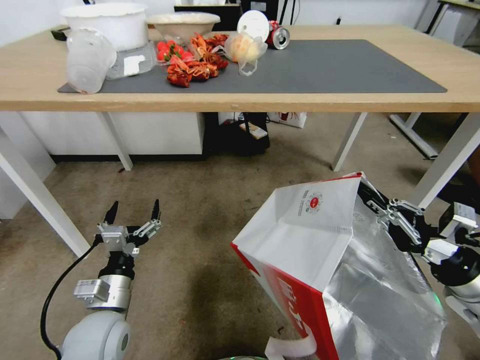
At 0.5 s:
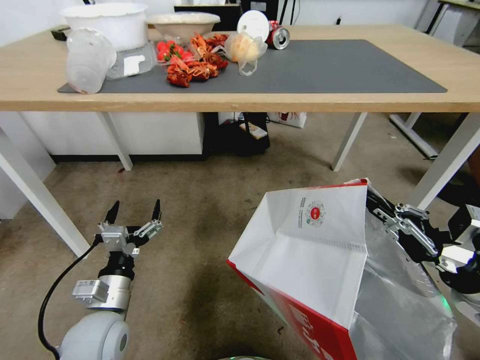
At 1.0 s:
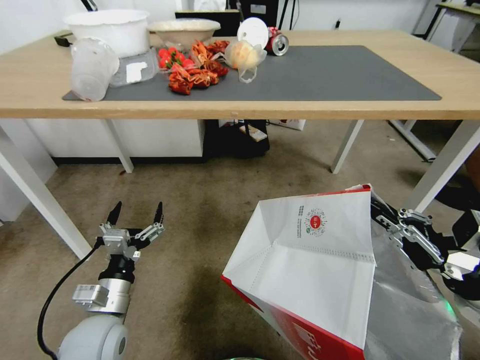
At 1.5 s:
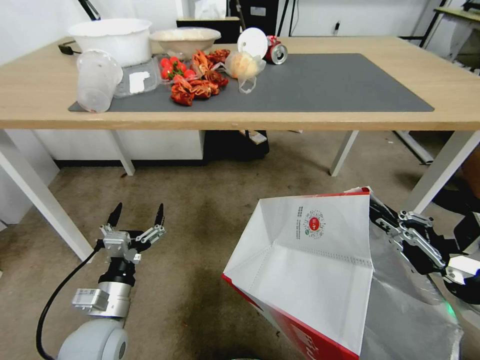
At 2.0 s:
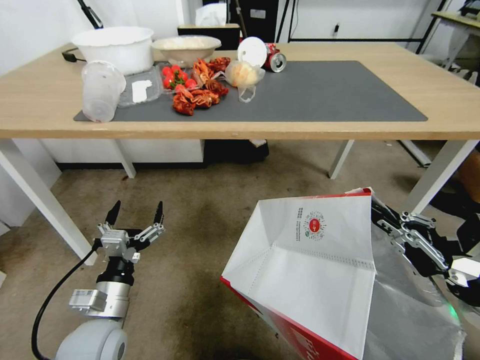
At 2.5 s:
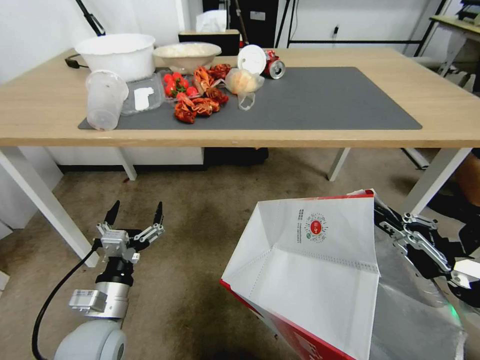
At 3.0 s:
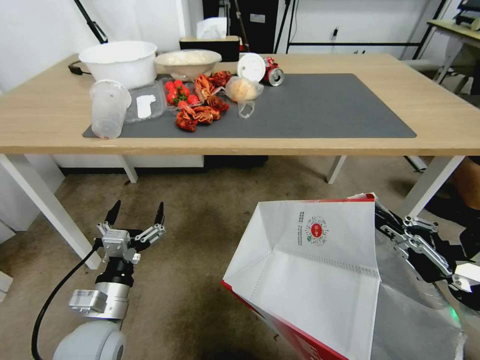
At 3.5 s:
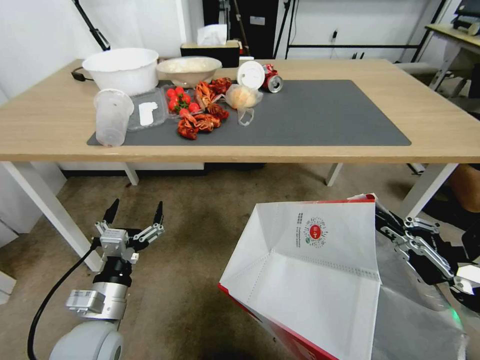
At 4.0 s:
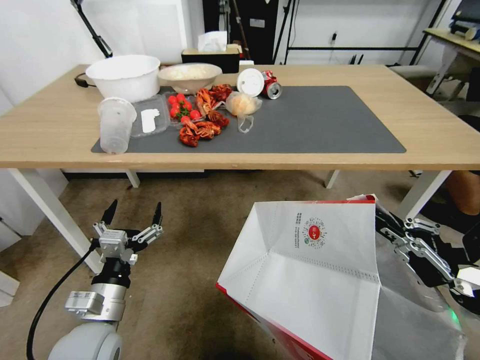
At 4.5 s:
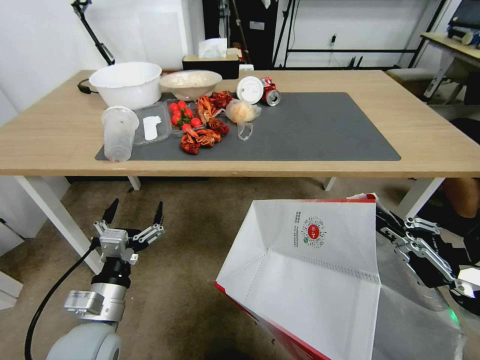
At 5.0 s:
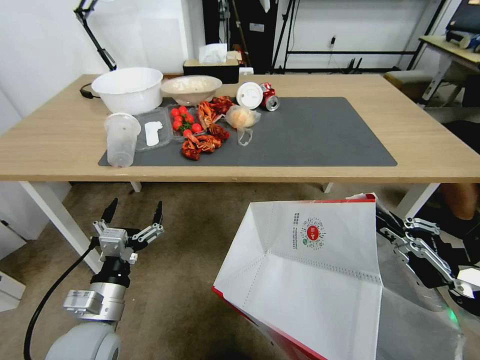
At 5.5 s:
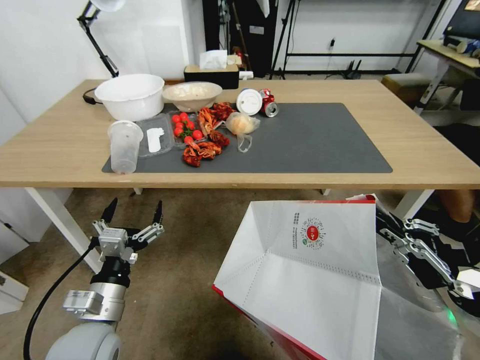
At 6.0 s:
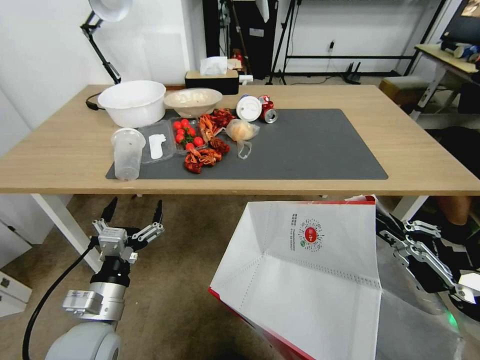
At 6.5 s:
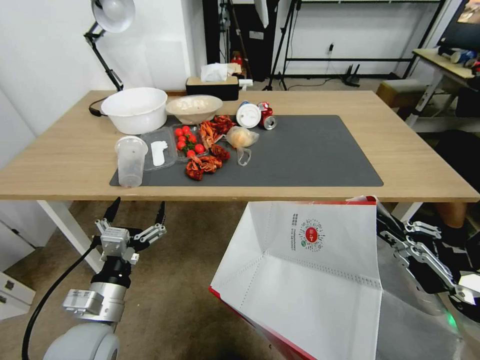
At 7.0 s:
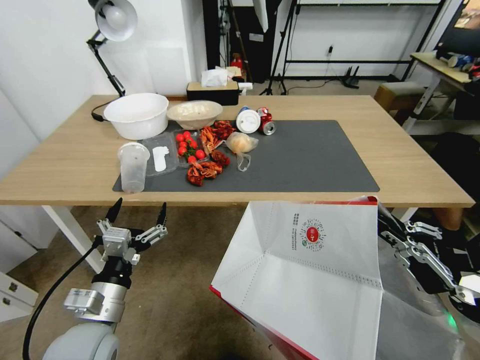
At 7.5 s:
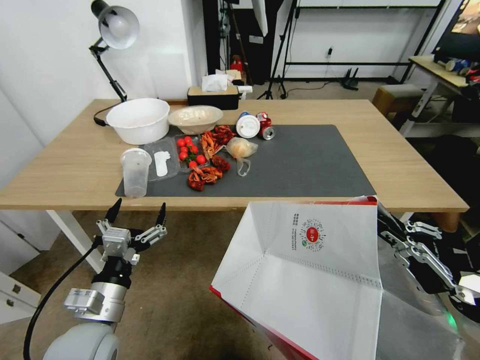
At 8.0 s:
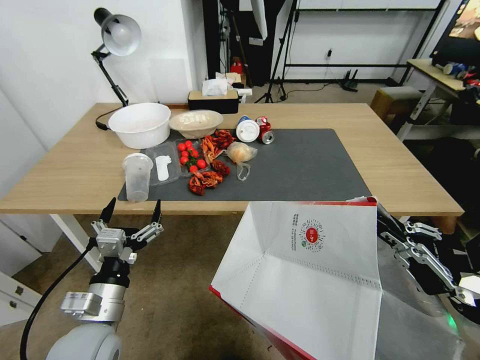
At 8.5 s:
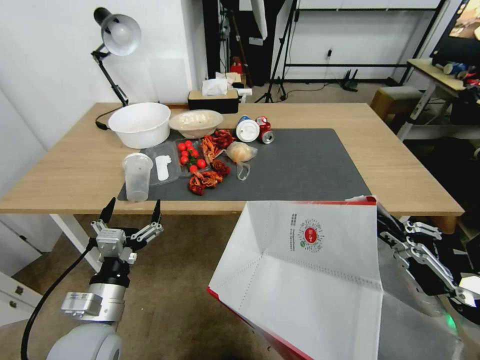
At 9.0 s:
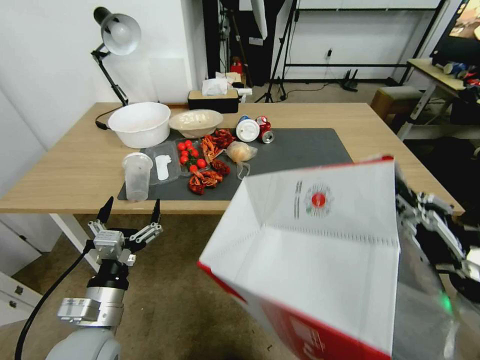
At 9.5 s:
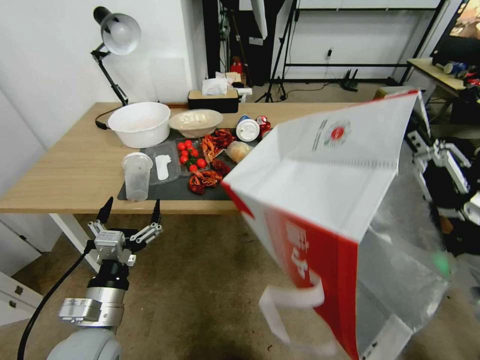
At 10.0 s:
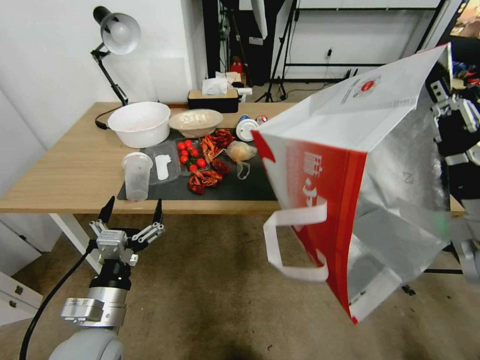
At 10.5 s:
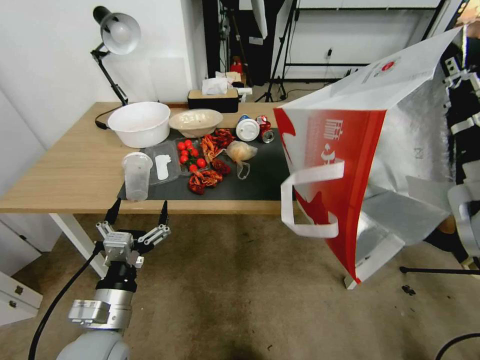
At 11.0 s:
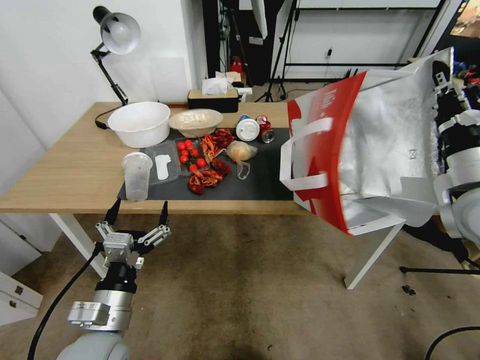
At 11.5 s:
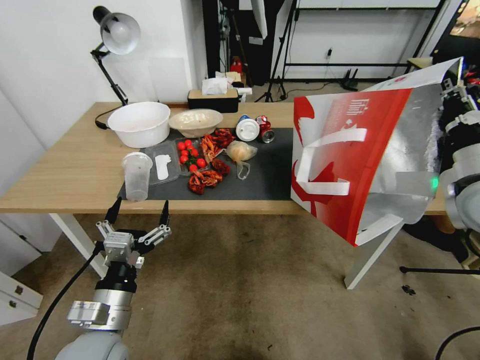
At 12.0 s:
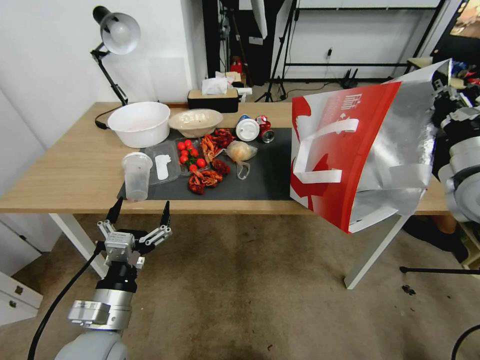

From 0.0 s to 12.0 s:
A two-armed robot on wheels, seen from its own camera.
Task of the whole recording: Pick up the food delivery bag from the floor and place it on the table.
From 8.0 s to 10.0 s: The right gripper moves upward and forward, some 10 cm.
From 10.0 s to 12.0 s: The right gripper travels forward and to the right by roughly 15 cm.

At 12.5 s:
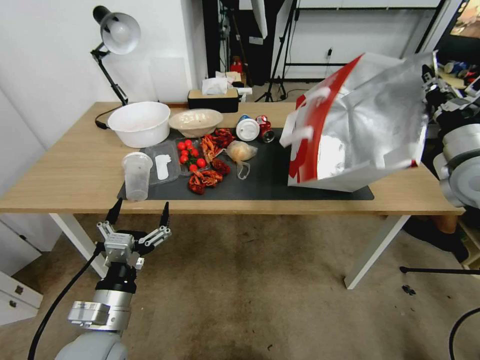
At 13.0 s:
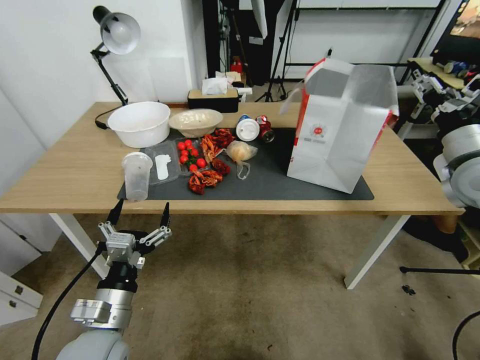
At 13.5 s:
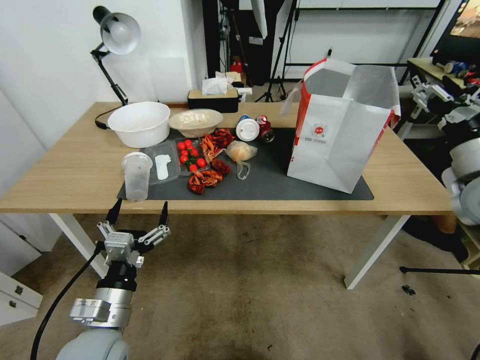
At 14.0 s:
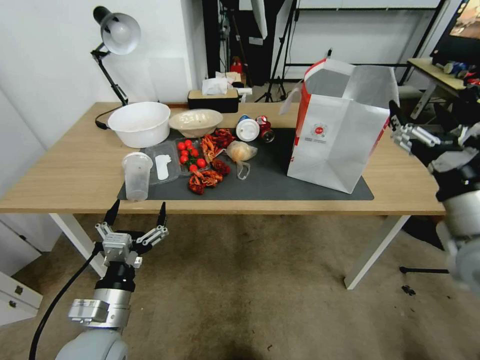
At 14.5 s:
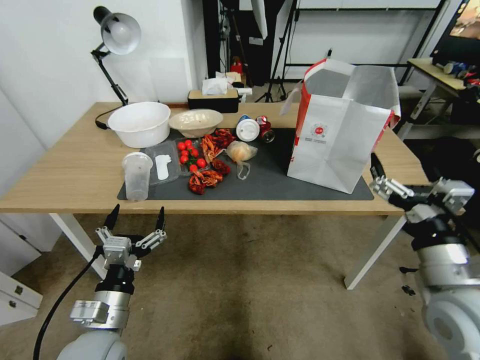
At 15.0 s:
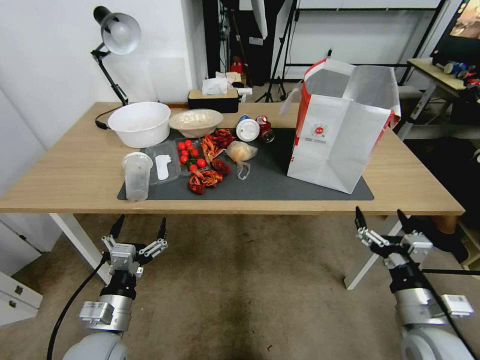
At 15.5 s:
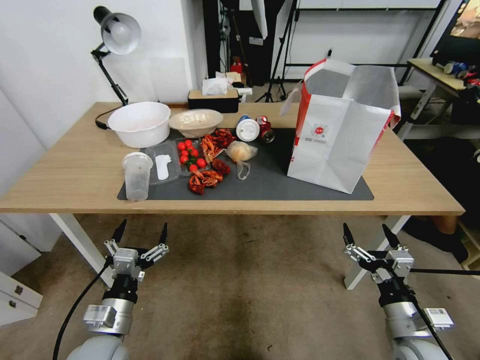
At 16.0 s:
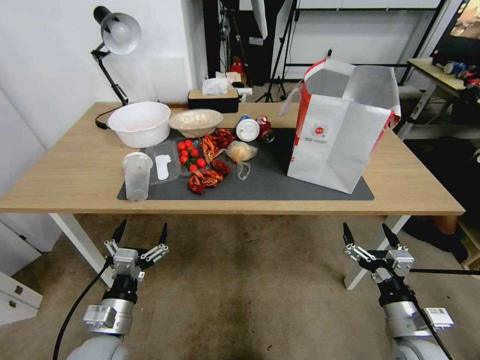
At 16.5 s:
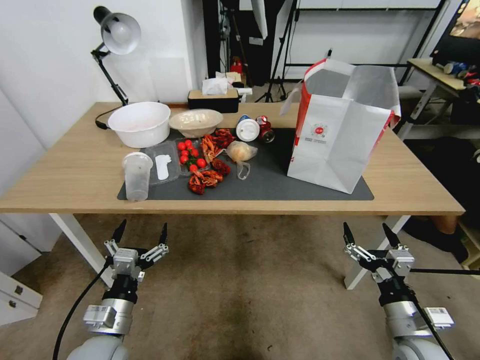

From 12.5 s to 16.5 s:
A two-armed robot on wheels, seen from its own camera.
Task of the whole recording: Pick up the food delivery bag from the floor and place it on the table.
From 12.5 s to 14.5 s: The right gripper is displaced backward, downward and to the left by roughly 25 cm, and opens its fingers.
From 14.5 s to 16.5 s: The right gripper shifts about 15 cm downward.

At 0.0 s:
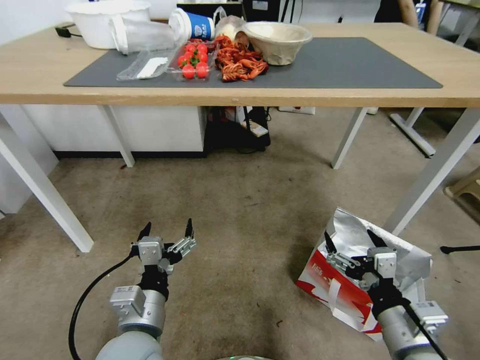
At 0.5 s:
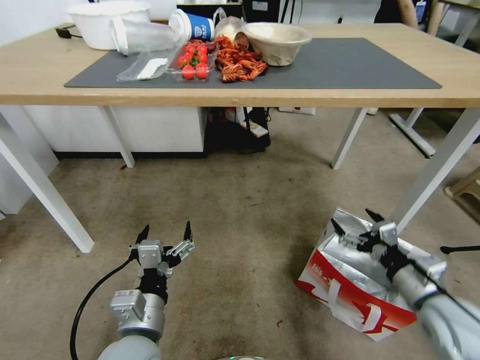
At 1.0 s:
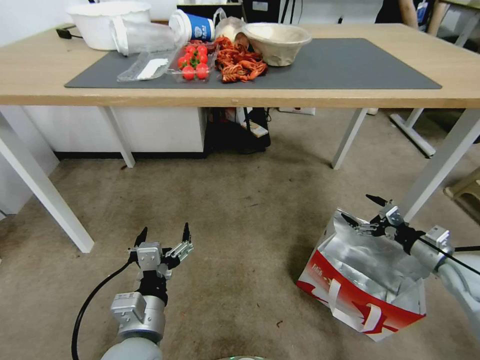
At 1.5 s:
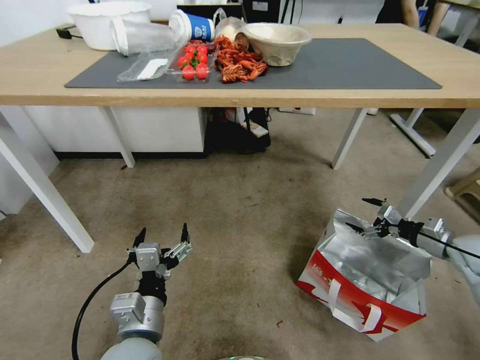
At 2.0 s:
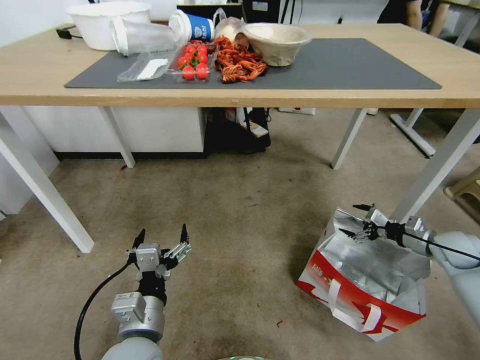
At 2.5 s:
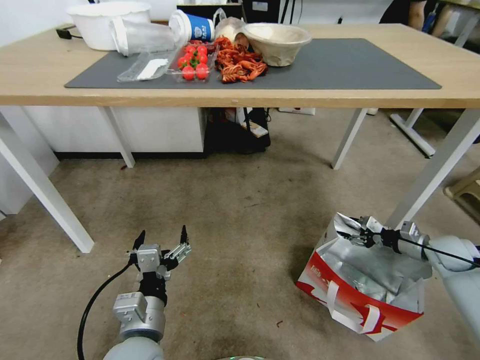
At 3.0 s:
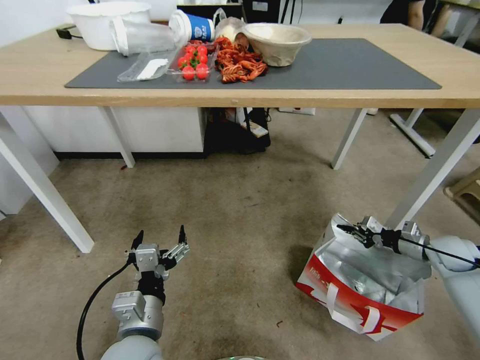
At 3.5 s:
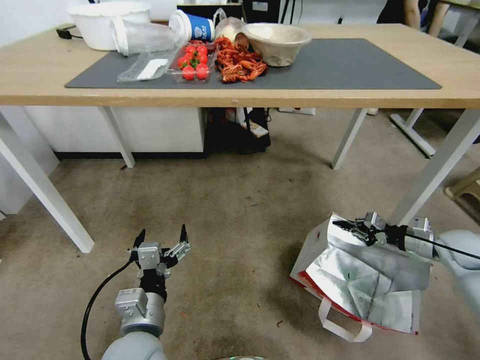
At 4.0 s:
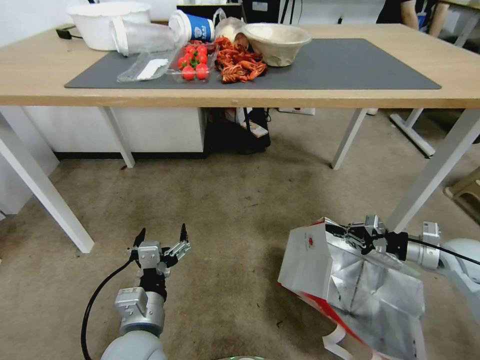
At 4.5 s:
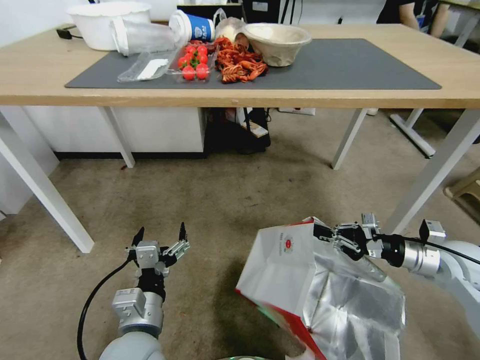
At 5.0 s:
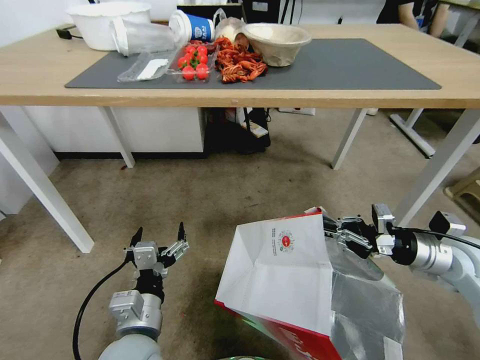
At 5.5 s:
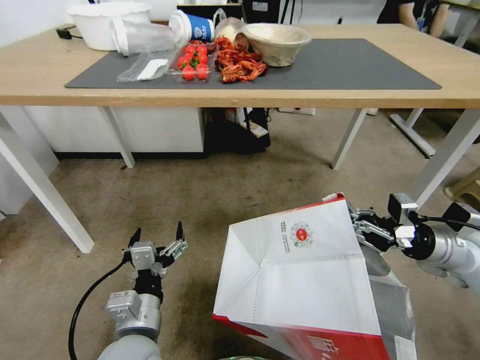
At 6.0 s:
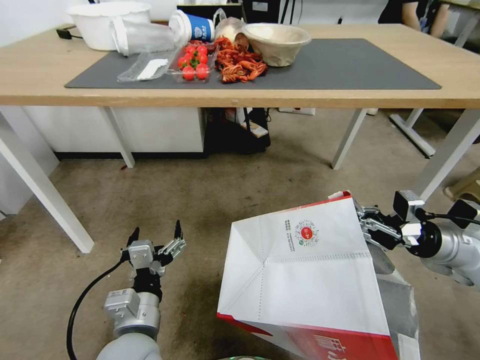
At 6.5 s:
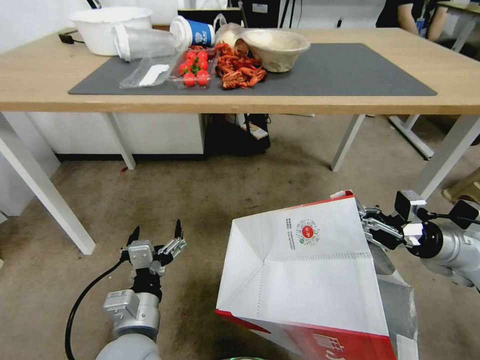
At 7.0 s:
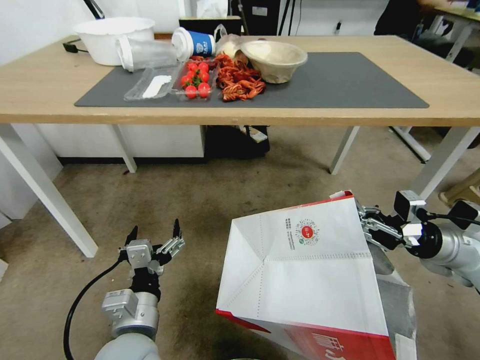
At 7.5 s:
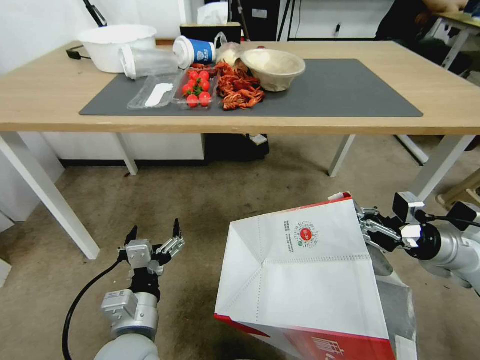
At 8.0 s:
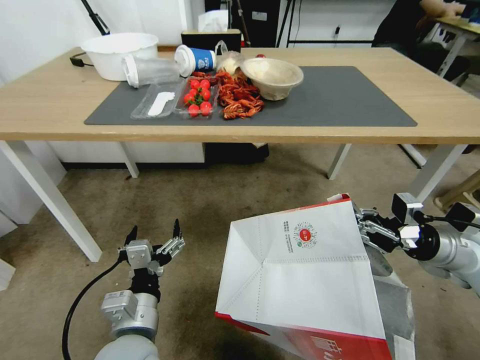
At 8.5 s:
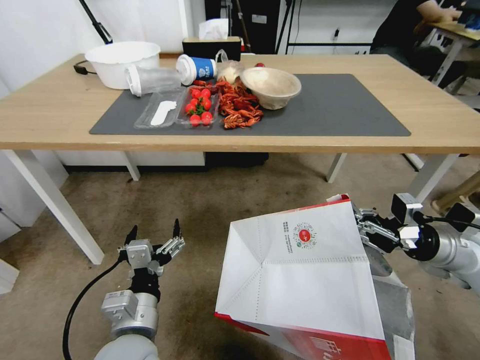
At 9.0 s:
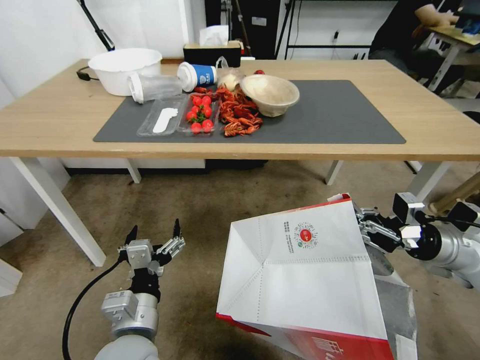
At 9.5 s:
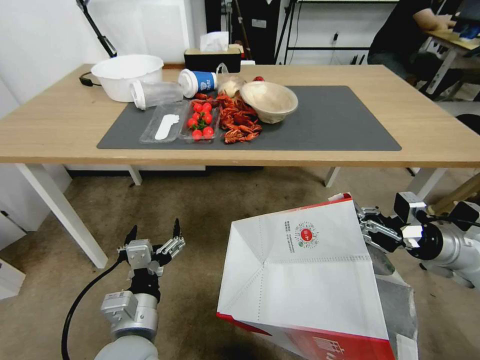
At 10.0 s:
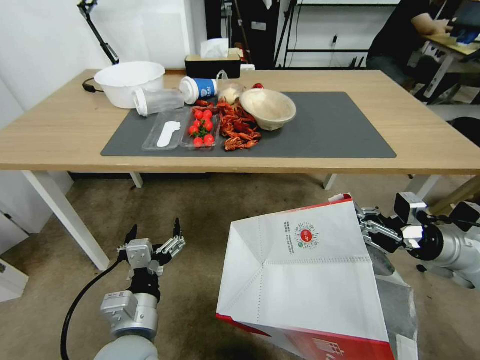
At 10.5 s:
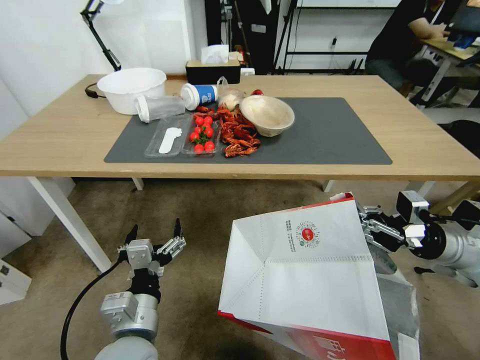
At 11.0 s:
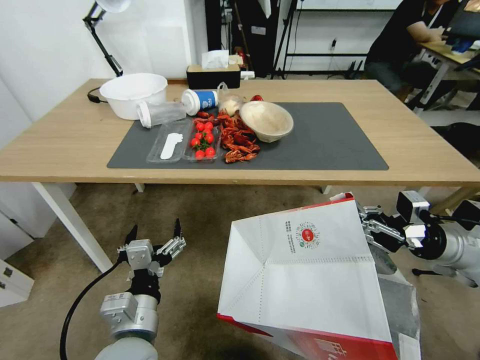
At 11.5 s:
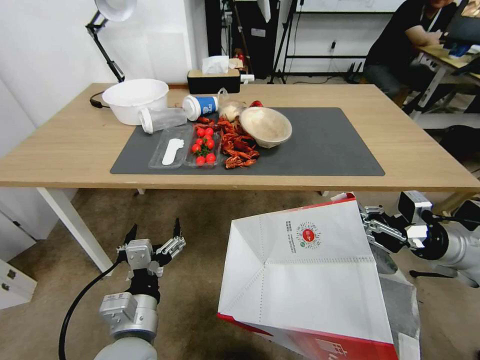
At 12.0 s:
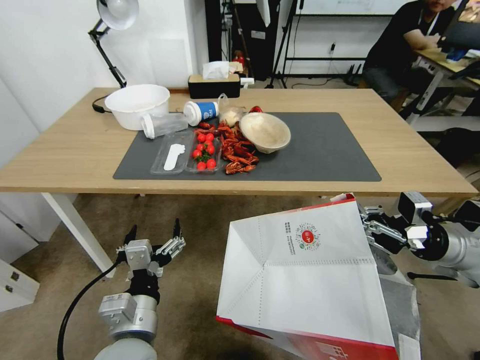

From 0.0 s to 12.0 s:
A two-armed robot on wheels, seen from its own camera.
Task of the whole recording: Pick up the food delivery bag from the floor and place it on the table.
From 0.0 s to 2.0 s: The right gripper travels to the right and forward by roughly 35 cm.
From 2.0 s to 4.0 s: The right gripper moves about 10 cm, and closes.
From 4.0 s to 6.0 s: The right gripper is displaced upward and to the left by some 10 cm.
